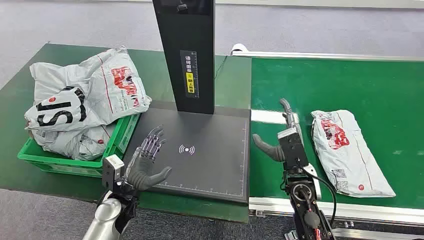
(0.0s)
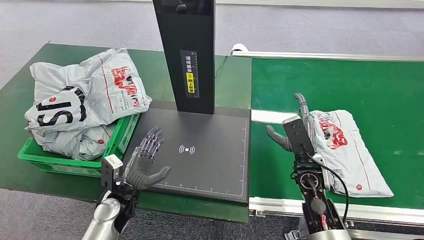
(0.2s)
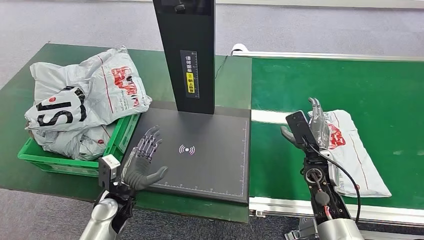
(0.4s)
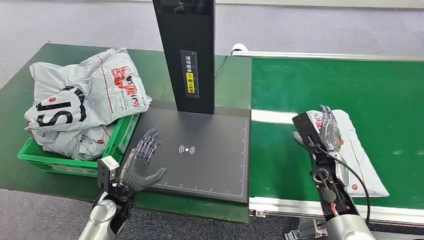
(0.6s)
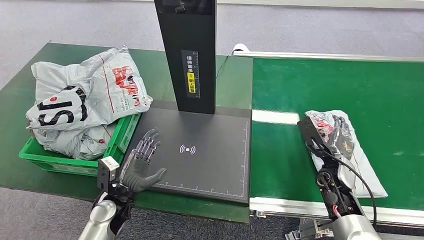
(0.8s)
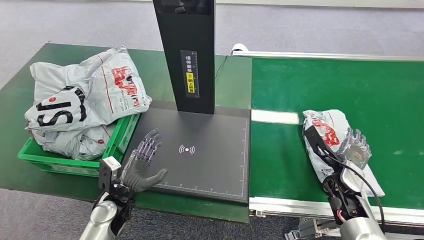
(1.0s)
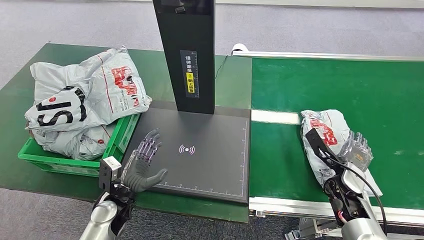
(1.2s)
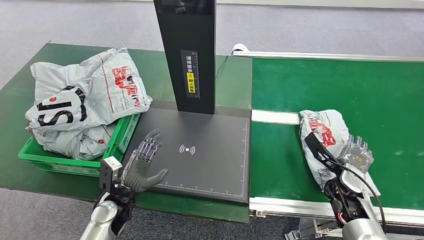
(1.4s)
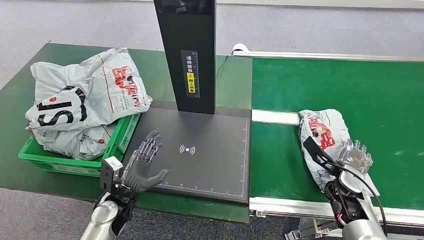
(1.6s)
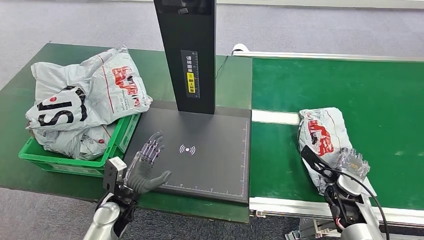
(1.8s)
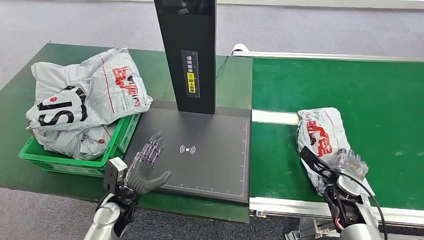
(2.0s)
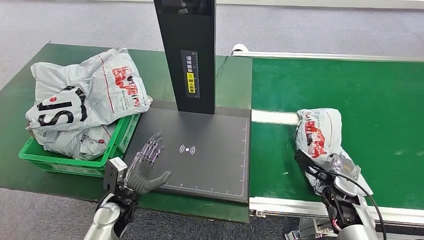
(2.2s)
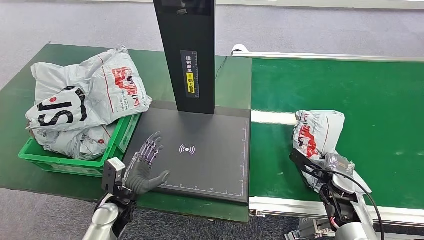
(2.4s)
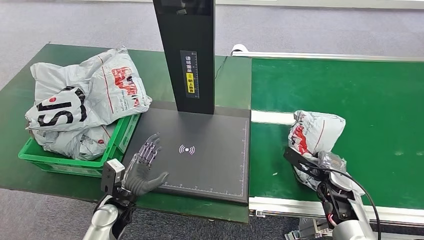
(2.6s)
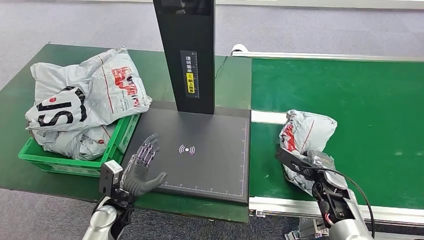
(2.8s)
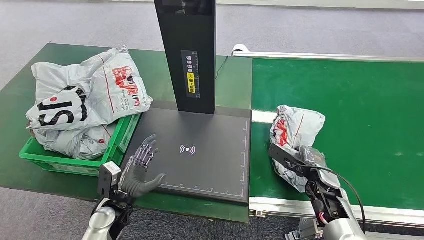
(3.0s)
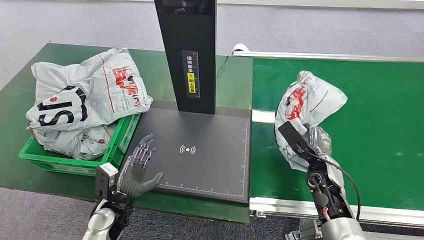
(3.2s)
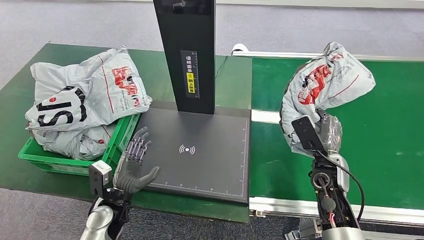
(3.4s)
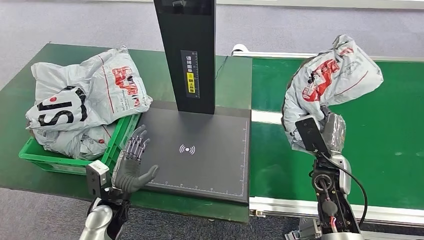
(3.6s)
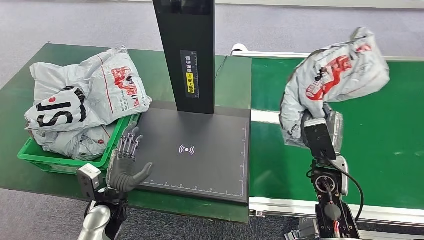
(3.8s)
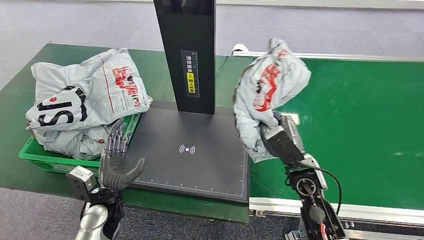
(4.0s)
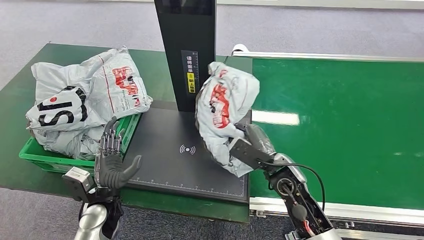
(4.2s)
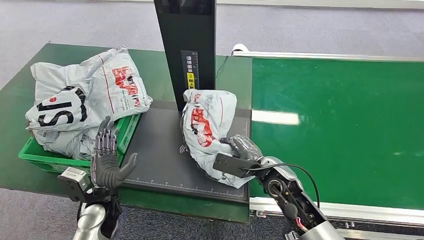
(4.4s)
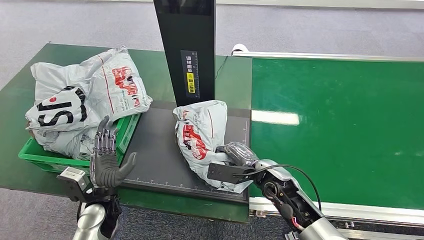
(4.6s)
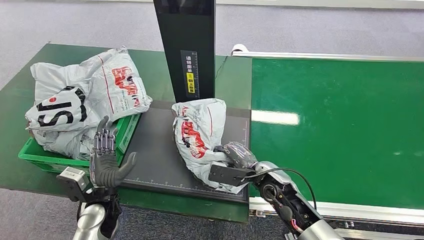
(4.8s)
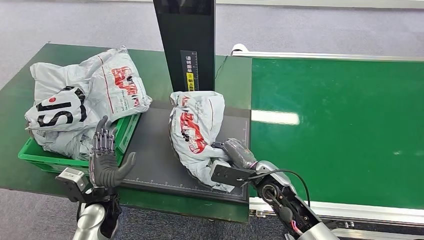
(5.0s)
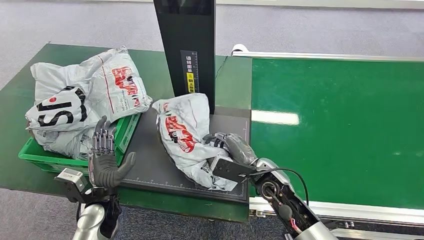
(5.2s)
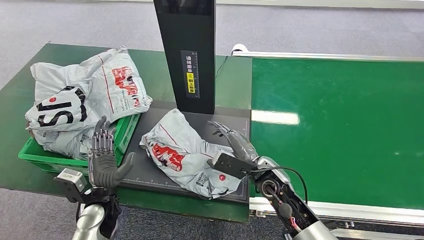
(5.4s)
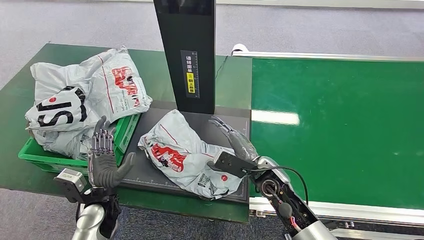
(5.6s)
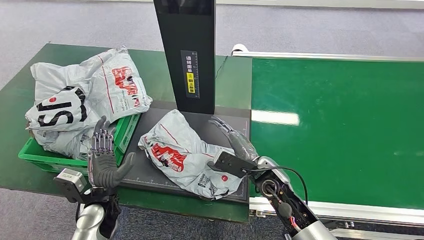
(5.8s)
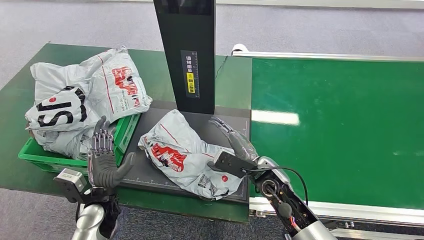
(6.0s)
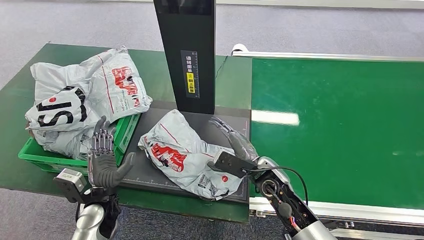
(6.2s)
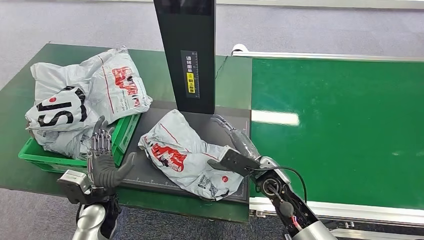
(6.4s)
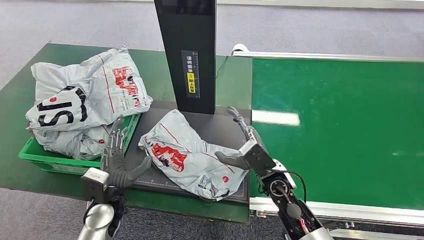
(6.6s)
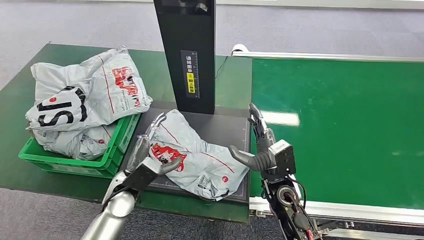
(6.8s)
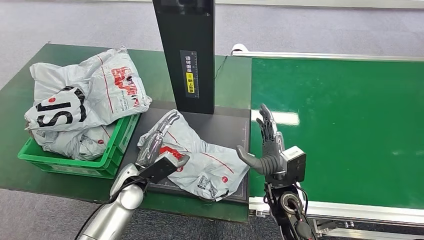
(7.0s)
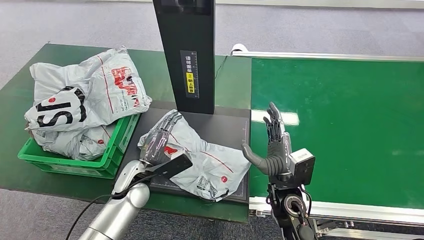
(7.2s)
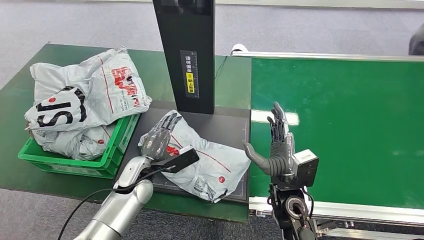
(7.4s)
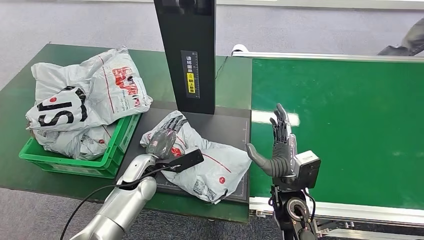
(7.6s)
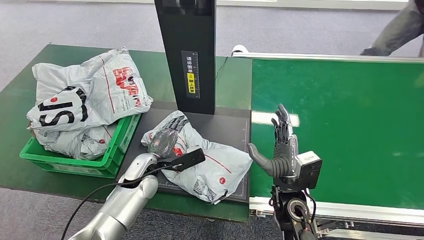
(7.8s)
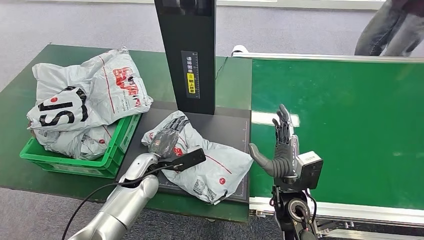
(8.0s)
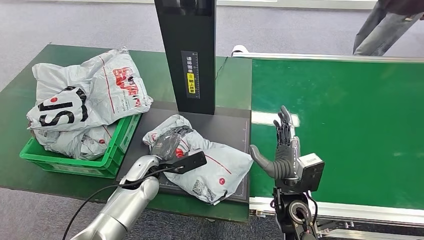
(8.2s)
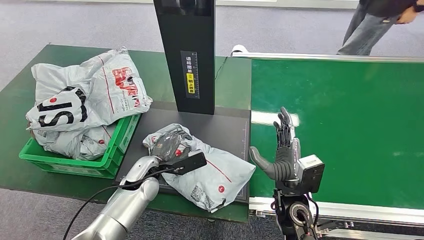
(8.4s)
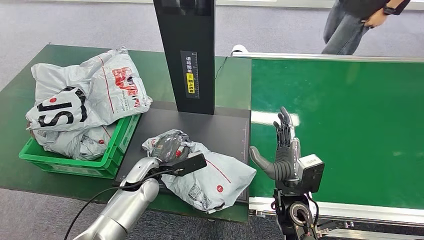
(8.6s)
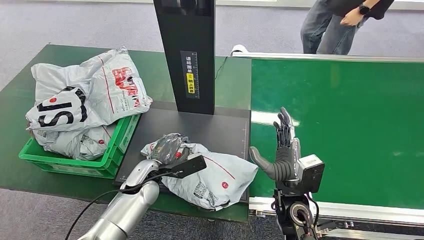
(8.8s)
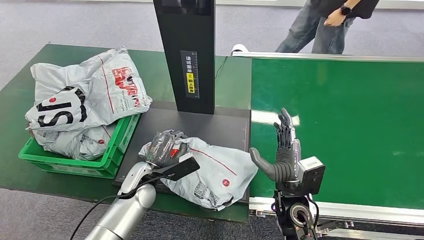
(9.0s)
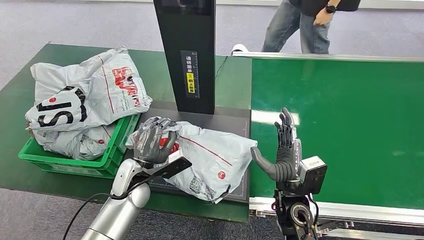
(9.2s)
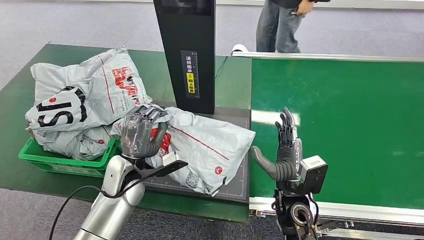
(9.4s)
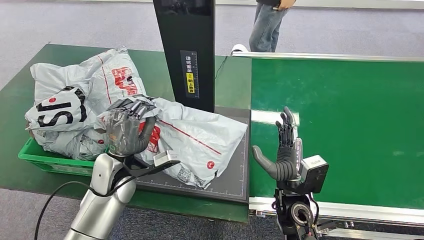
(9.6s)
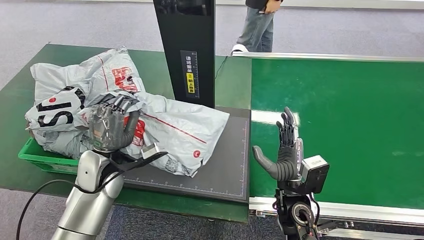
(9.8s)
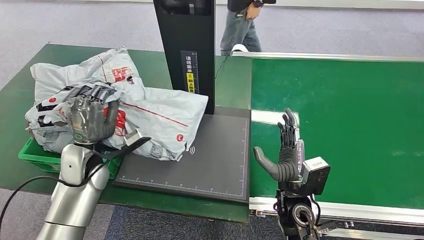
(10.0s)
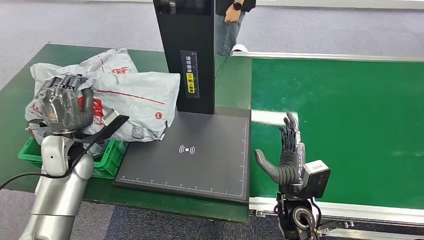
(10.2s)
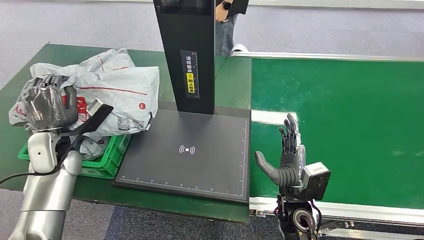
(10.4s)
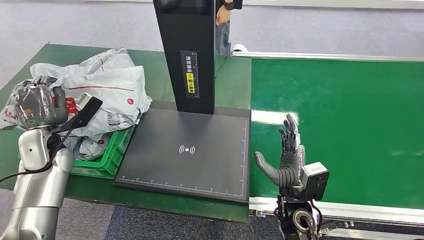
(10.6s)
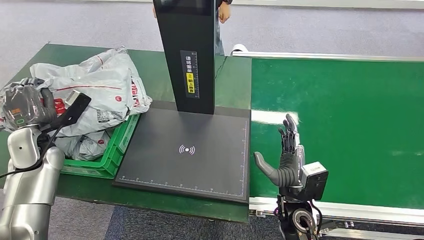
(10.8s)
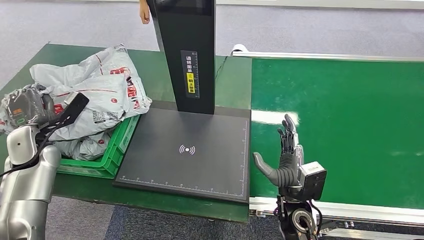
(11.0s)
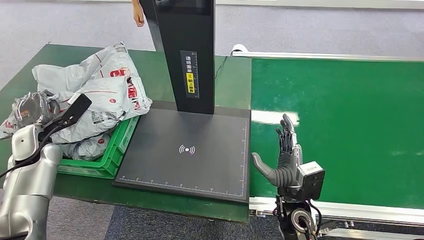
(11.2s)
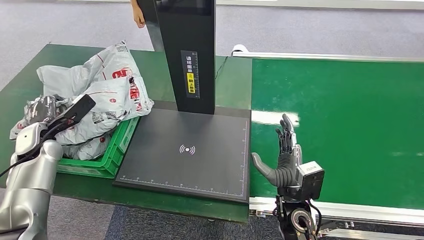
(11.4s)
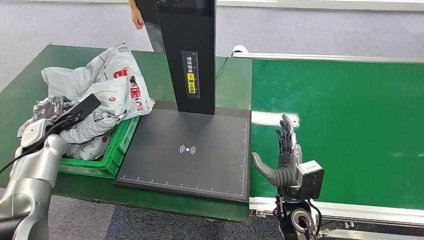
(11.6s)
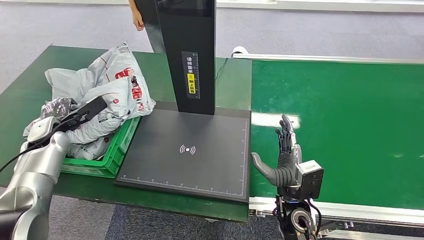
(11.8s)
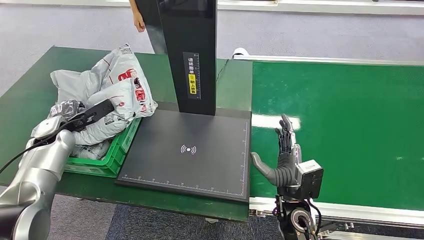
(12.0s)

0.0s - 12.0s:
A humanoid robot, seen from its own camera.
Step, 0.0s - 3.8s: Pick up the package from the conveyor belt.
Step, 4.0s - 6.2s: Place the package onto the inbound machine.
Step, 6.6s - 10.0s: Pick up the package from the inbound machine.
1.6s - 3.0s: The right hand goes approximately 5 cm to the left.
3.0s - 4.4s: The right hand heads to the left, covering roughly 15 cm.
4.4s - 6.0s: The hands move only a little.
6.0s - 7.6s: The right hand is displaced backward by about 5 cm. Meanwhile the left hand heads forward and to the right, covering some 10 cm.
7.6s - 9.0s: The hands move only a little.

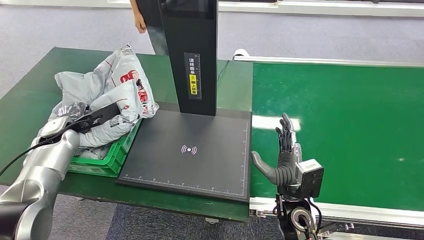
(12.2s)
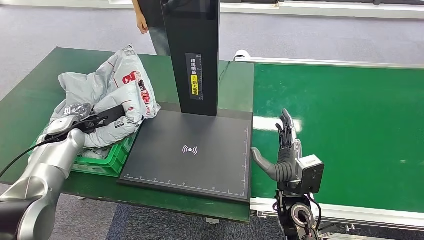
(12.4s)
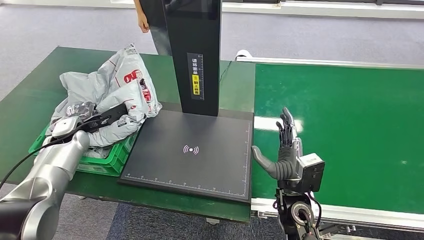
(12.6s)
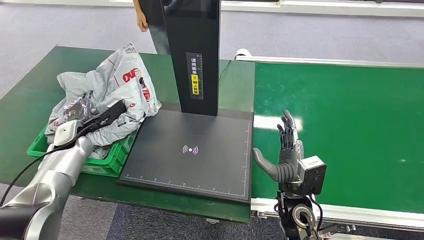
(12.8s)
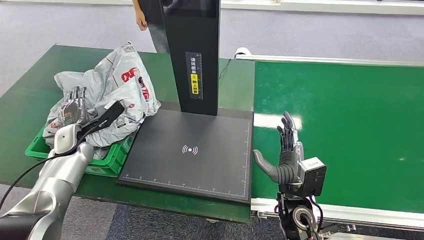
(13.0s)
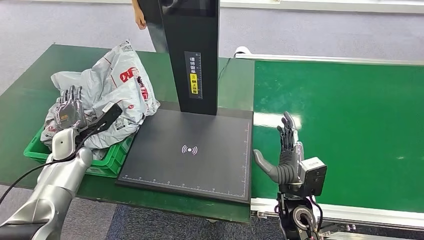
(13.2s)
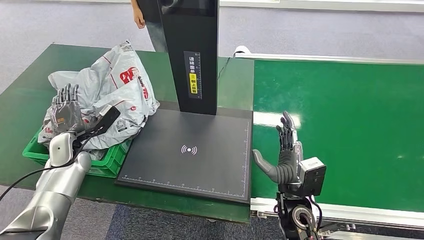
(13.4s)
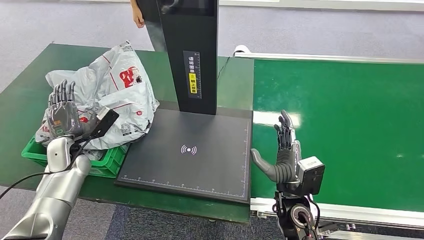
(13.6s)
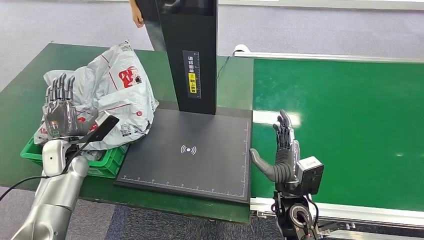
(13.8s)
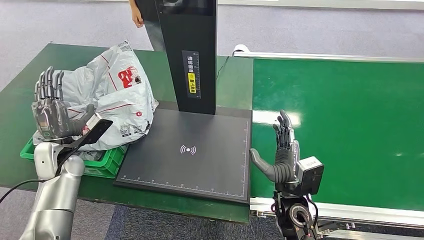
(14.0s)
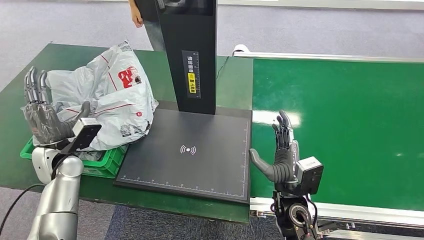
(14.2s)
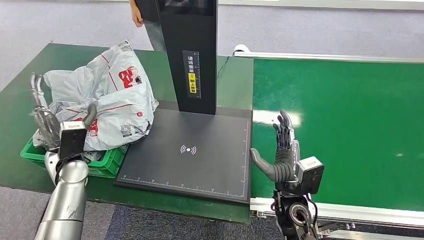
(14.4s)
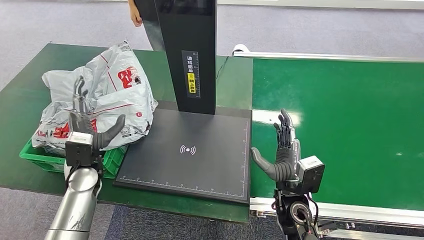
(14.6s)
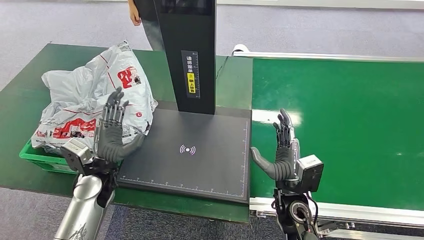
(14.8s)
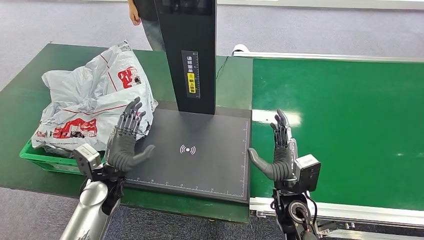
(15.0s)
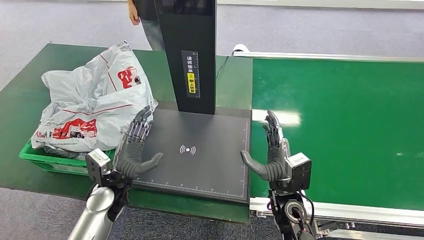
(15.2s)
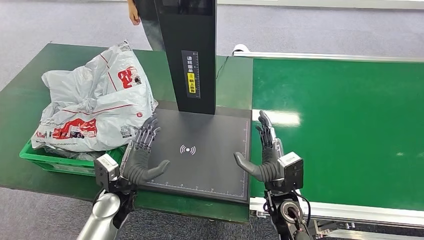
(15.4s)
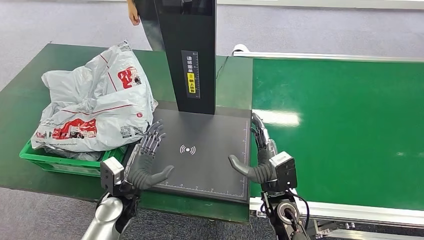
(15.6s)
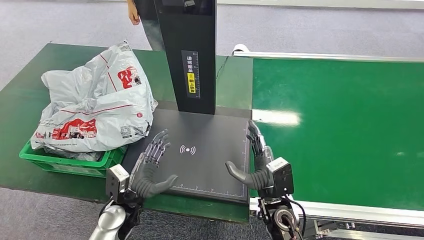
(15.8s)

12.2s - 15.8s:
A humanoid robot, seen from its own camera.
Step, 12.2s - 15.8s: Place the package into the parcel locker.
14.0s - 15.8s: The left hand shifts some 20 cm to the right, backward and downward.
